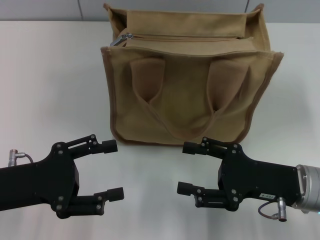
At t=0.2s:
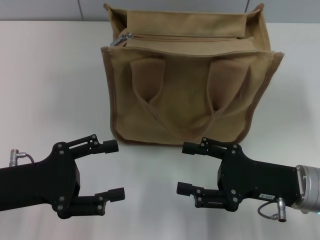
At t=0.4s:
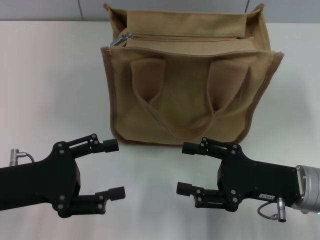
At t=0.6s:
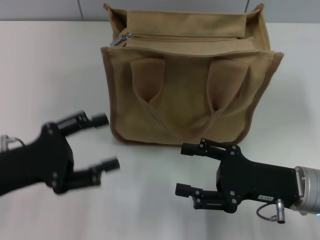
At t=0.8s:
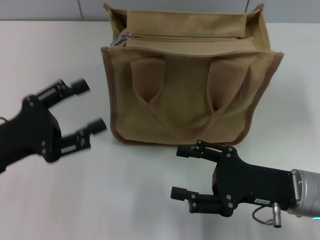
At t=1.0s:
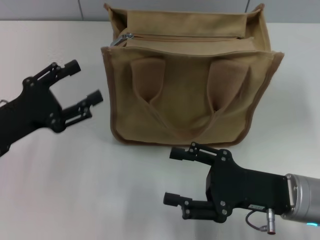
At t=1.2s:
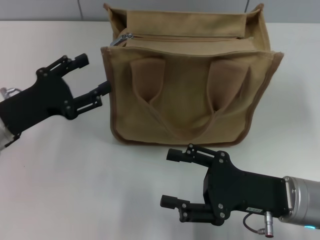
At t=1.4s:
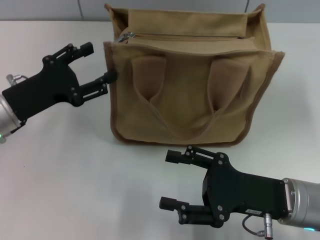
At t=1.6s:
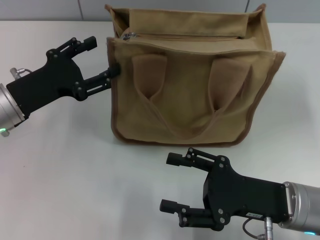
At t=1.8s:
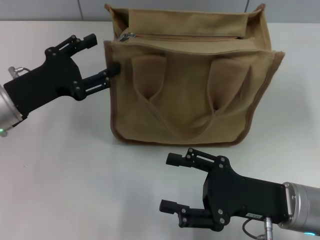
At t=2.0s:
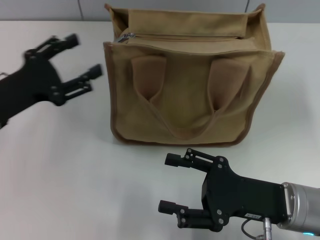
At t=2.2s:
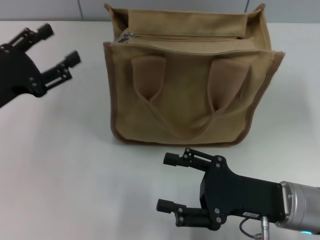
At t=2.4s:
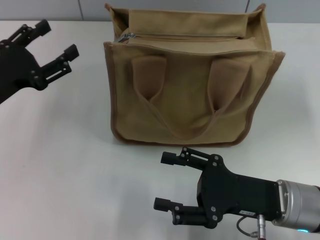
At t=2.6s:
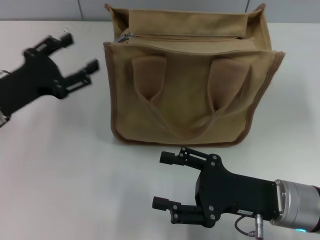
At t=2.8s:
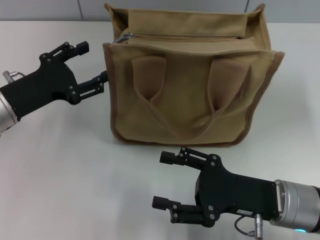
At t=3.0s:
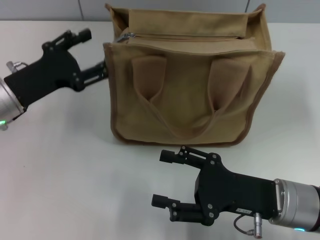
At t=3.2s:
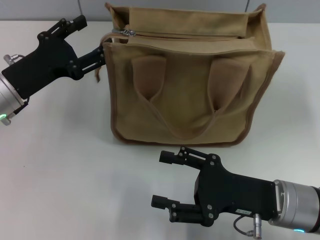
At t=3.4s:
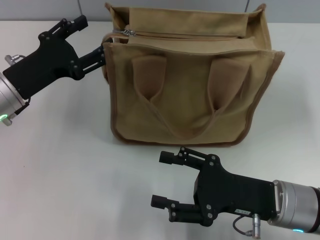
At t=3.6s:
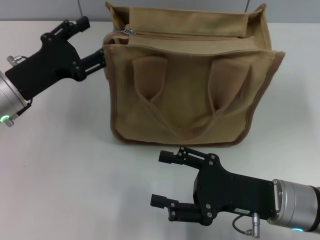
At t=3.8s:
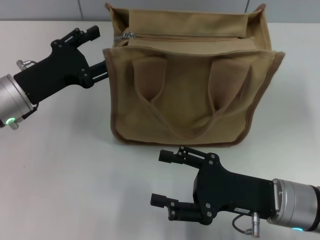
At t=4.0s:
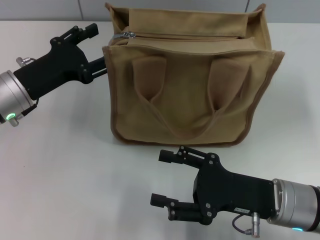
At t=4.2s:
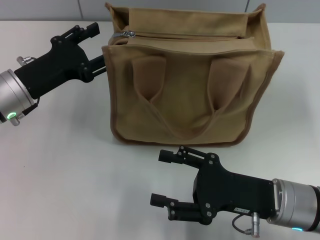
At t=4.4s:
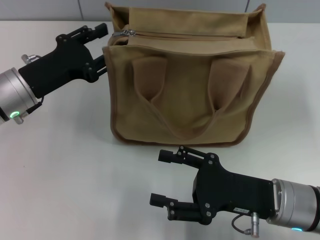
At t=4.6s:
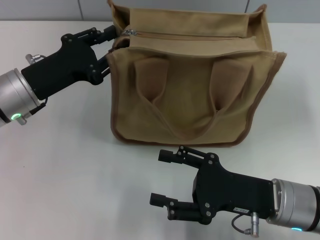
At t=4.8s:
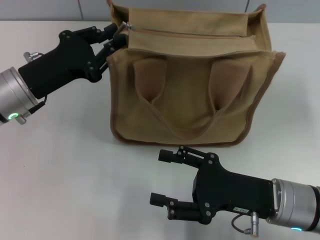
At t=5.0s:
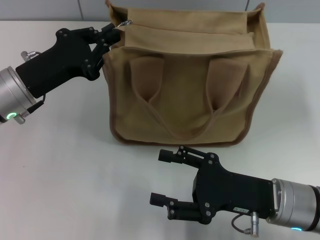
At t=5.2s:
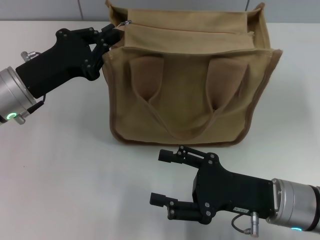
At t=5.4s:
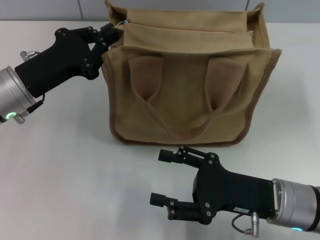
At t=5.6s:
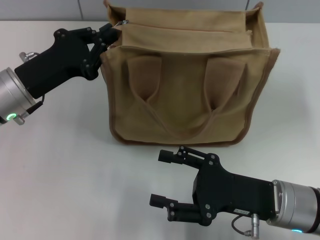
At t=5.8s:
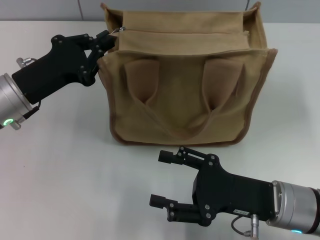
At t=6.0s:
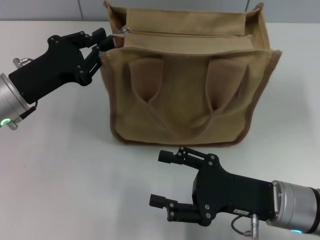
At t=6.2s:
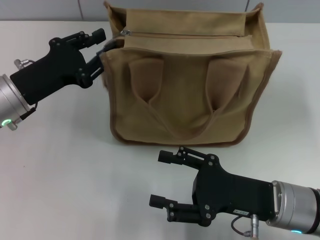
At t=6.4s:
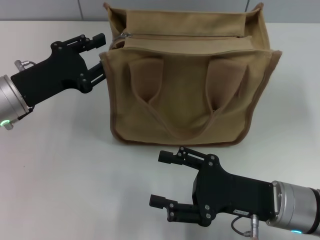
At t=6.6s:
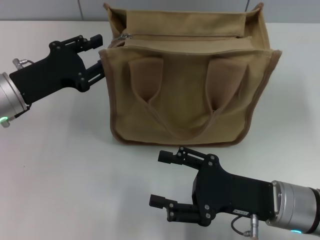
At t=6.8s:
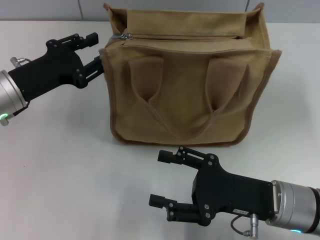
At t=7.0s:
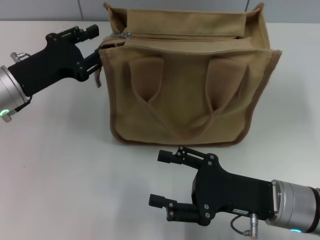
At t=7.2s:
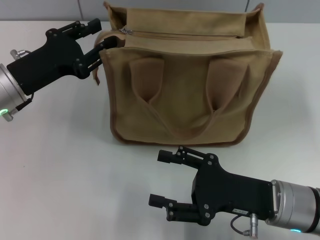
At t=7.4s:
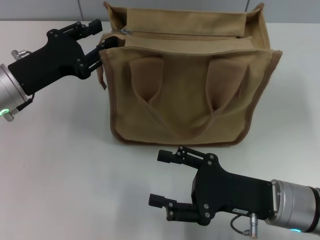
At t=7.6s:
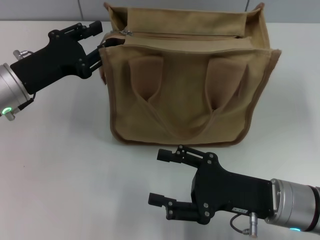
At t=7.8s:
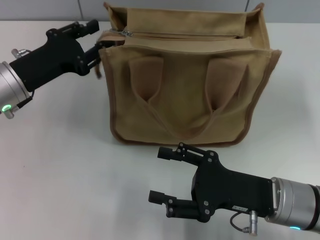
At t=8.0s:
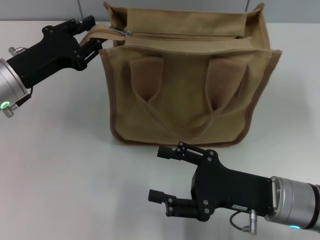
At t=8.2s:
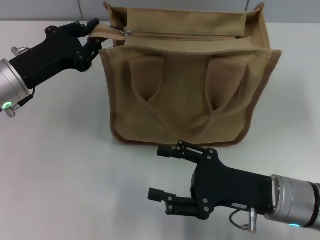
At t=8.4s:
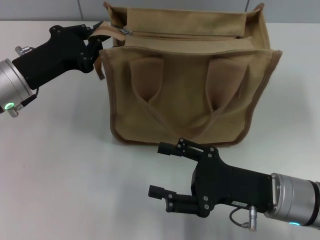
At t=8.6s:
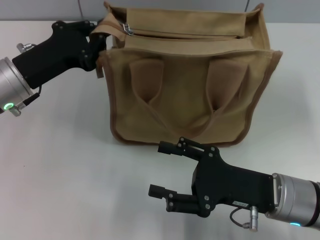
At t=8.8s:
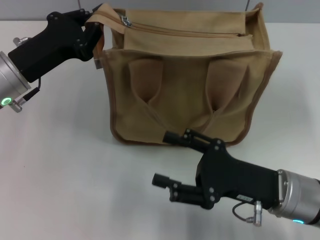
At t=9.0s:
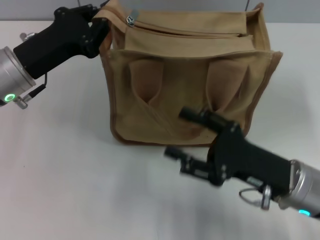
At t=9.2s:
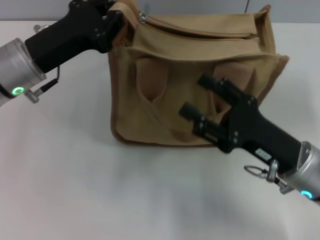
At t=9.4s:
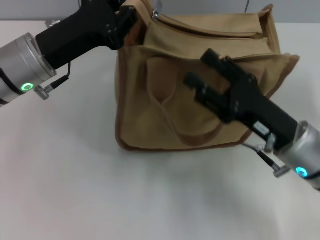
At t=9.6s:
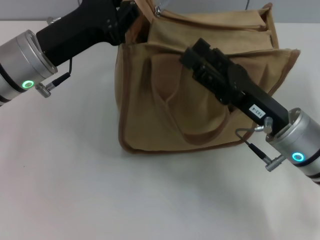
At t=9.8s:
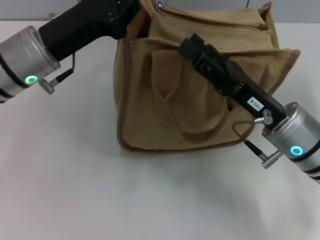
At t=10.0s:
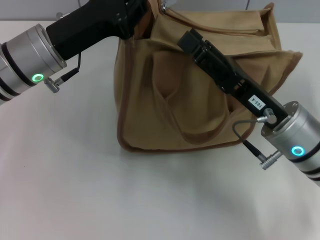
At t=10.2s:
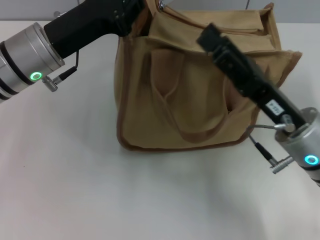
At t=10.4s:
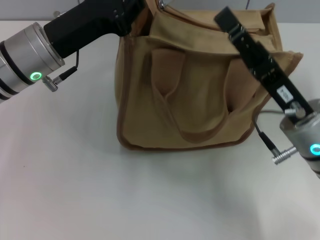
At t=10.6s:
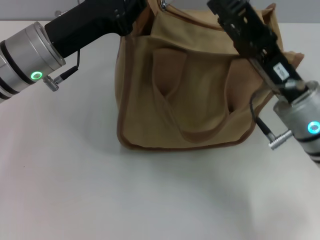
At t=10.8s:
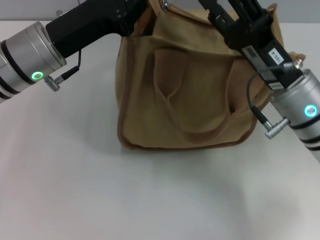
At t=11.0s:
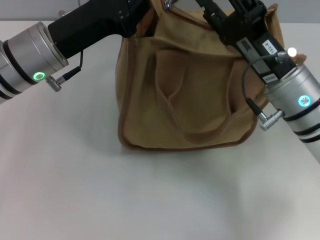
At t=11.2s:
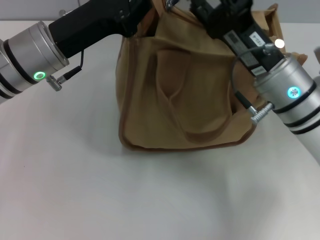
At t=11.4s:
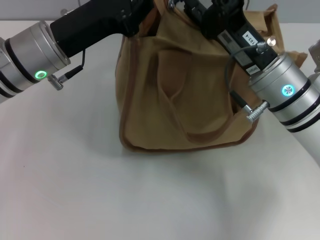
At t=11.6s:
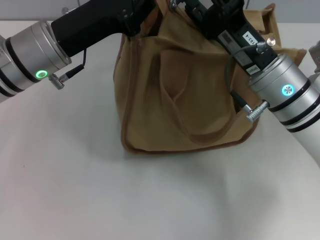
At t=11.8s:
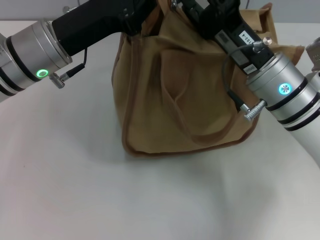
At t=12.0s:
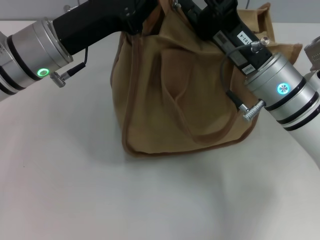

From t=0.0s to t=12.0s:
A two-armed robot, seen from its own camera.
From t=0.0s to t=1.6s: The left gripper heads forward, covering approximately 10 cm.
From t=1.6s to t=4.4s: The grippers stay close to where they were, moving slightly.
From t=4.4s to t=6.0s: The left gripper closes.
From t=6.0s to t=7.6s: The left gripper opens up.
From t=7.6s to t=9.0s: The left gripper closes its fingers.
From t=9.0s to t=10.4s: The right gripper changes place by roughly 5 cm.
From t=10.4s to t=12.0s: The right gripper goes about 5 cm forward.

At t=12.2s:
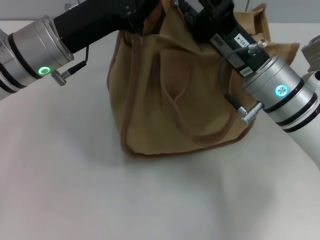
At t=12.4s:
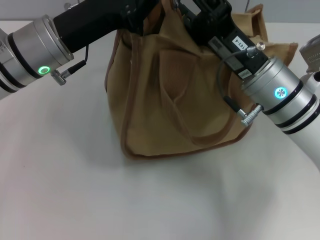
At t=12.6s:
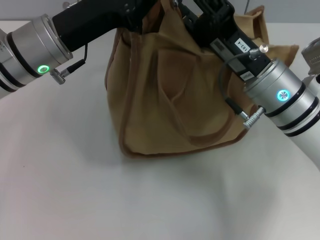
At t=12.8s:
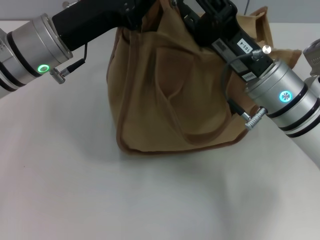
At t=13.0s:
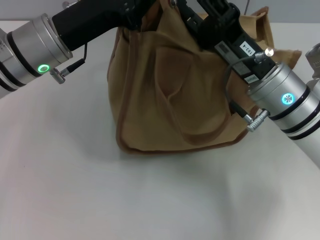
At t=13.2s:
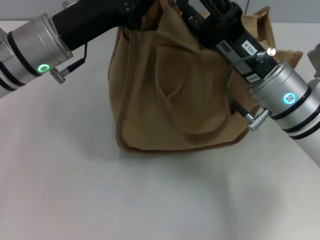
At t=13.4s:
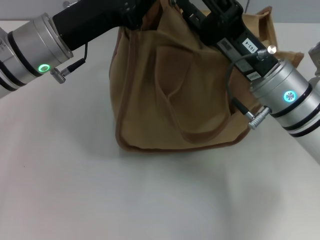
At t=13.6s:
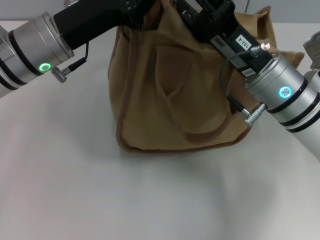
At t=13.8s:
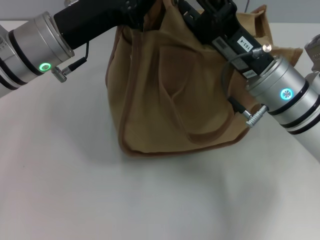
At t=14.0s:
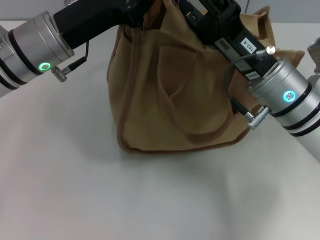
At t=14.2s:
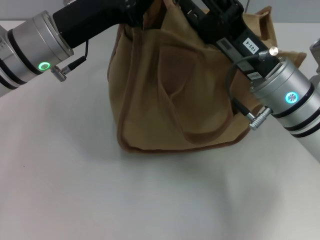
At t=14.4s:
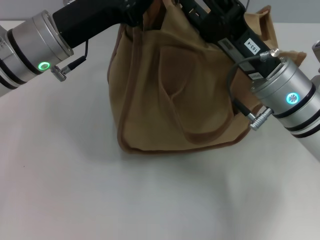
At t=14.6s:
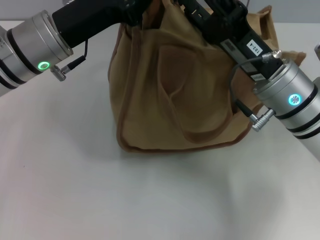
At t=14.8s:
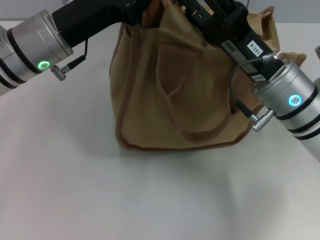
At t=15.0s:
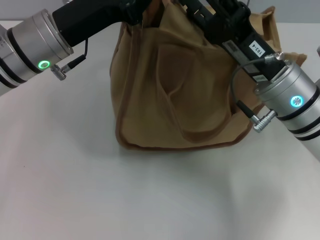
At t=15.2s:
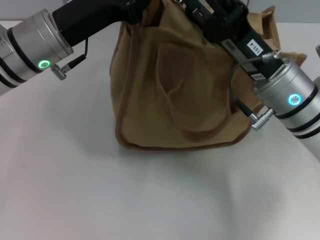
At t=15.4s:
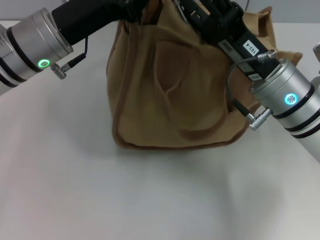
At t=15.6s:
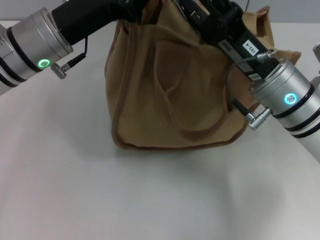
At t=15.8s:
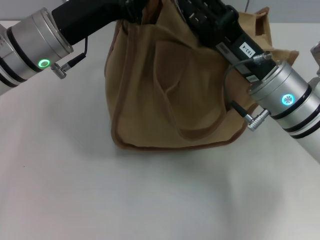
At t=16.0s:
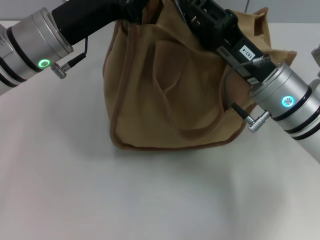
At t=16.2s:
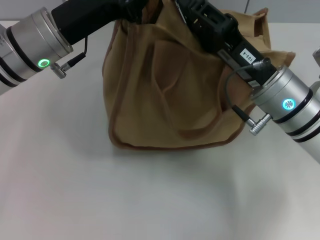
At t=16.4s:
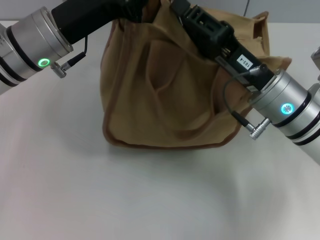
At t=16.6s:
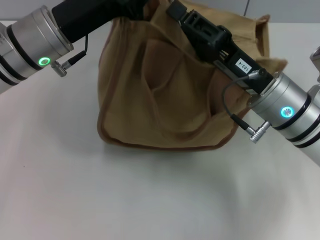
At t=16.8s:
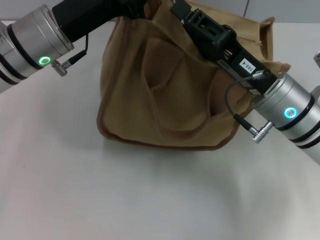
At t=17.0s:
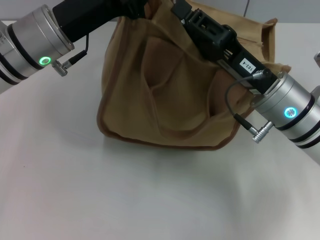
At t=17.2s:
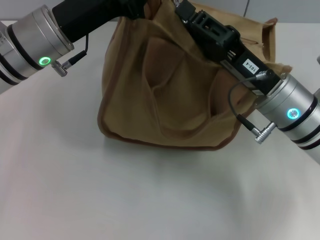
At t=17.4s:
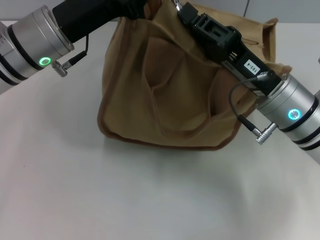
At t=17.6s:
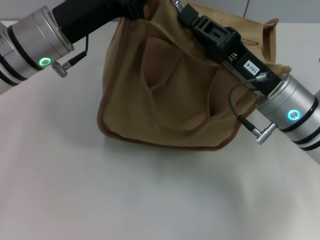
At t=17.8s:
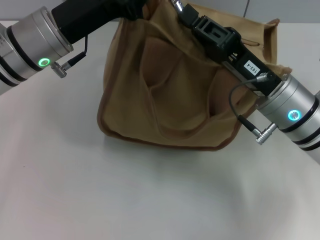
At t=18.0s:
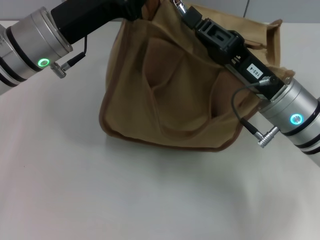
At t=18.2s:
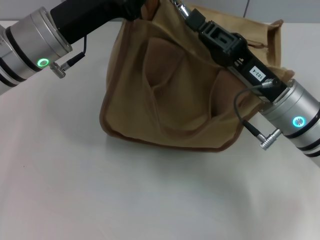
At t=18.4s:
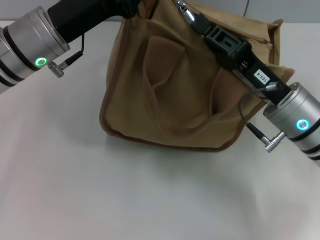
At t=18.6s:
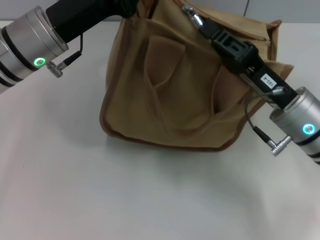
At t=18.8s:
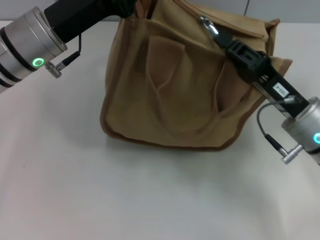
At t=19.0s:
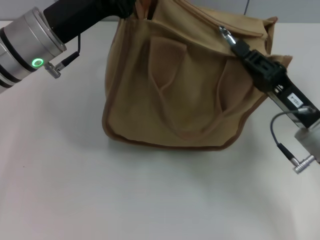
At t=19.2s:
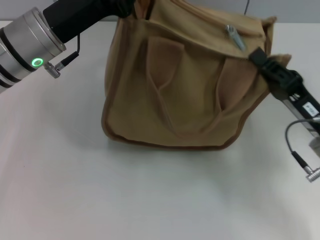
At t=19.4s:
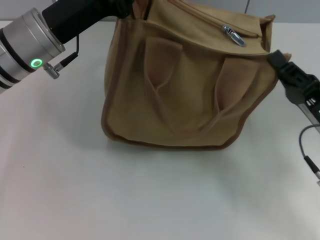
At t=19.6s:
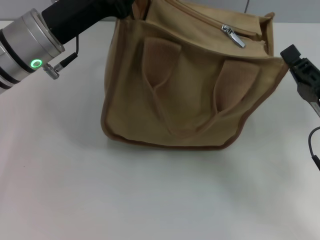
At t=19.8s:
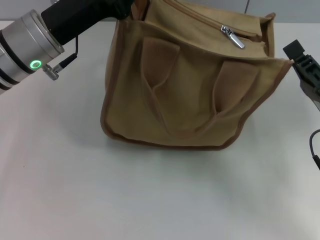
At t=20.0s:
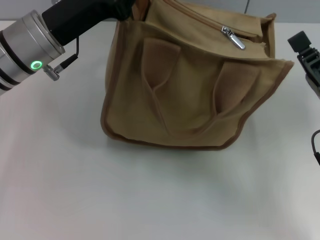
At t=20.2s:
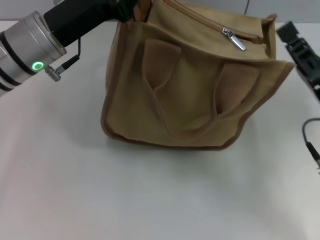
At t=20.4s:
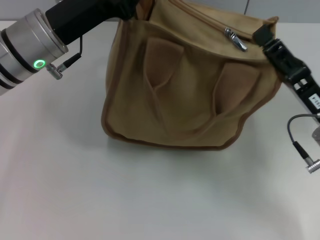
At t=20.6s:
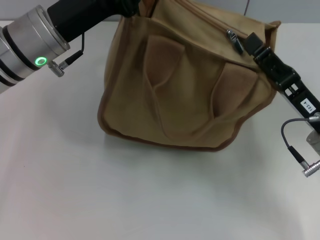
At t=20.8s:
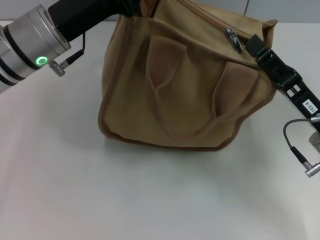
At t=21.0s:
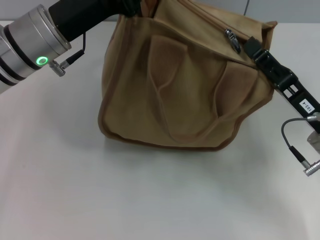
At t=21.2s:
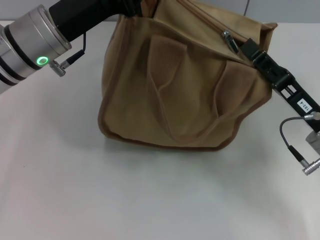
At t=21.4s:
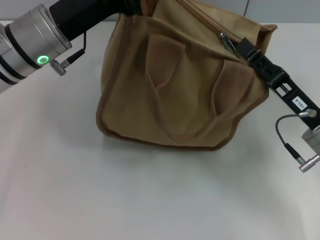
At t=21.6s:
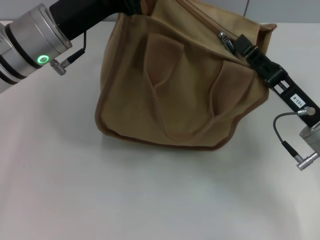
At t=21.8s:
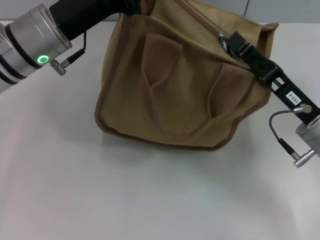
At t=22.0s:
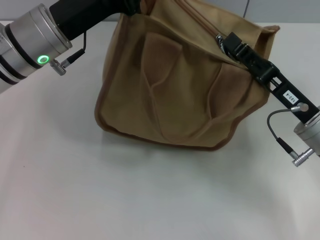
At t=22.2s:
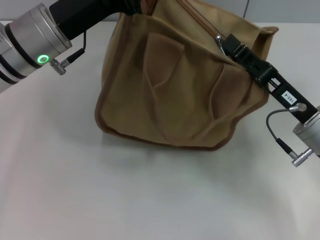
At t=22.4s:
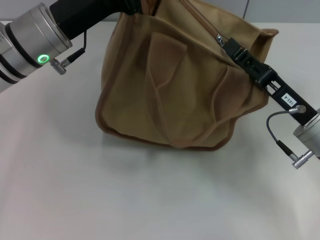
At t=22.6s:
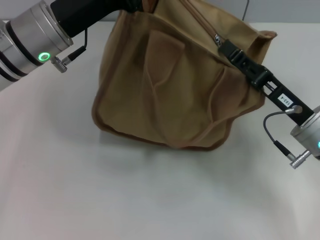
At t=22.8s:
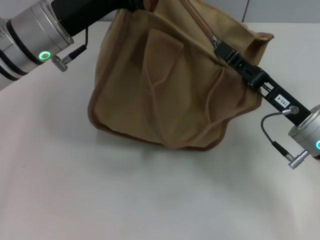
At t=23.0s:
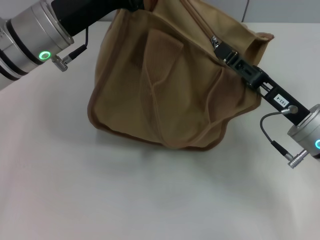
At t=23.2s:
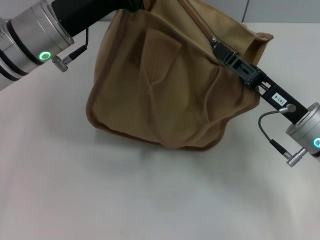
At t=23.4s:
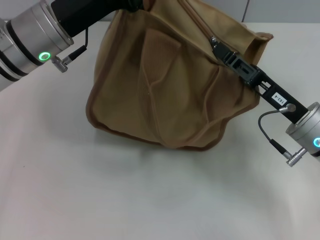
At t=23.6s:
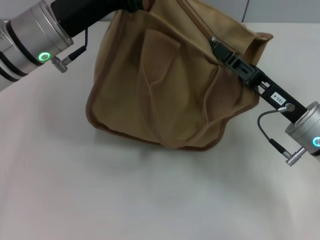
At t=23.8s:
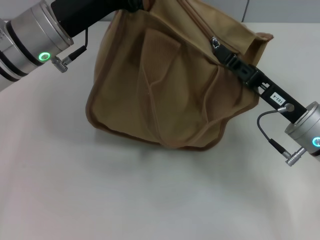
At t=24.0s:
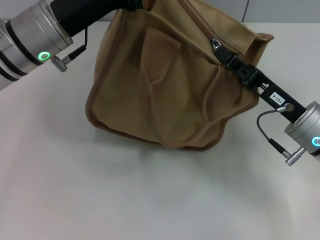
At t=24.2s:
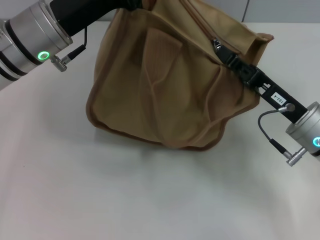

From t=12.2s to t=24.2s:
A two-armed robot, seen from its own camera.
From t=12.2s to t=13.8s: Both grippers stay put.
From t=13.8s to t=15.2s: Neither gripper changes place.
From t=15.2s to t=16.6s: The right gripper closes.
From t=16.6s to t=18.2s: The right gripper closes.
From t=18.2s to t=19.8s: The right gripper heads to the right and backward, covering some 10 cm.
From t=19.8s to t=21.2s: The right gripper opens.
From t=21.2s to t=22.6s: The grippers move only a little.
From t=22.6s to t=24.2s: The right gripper closes up.
